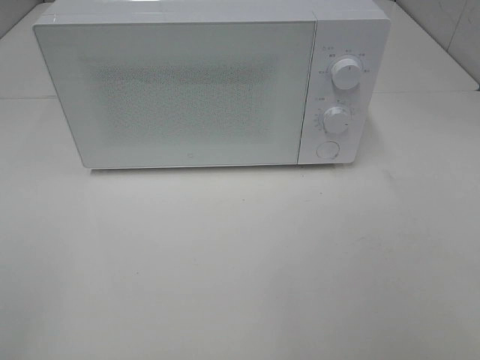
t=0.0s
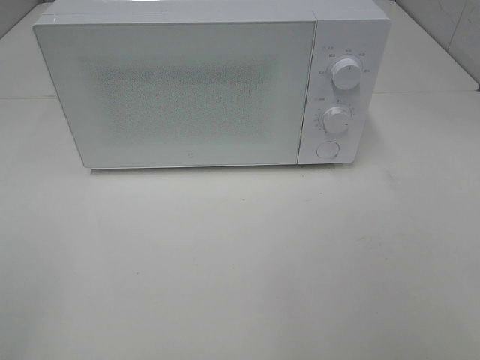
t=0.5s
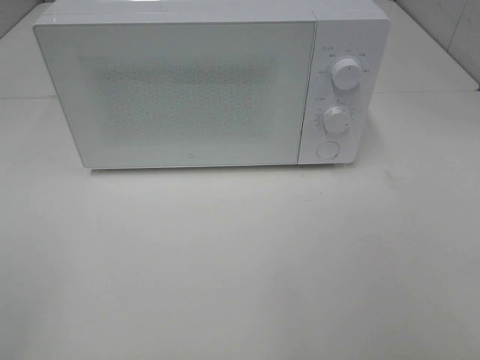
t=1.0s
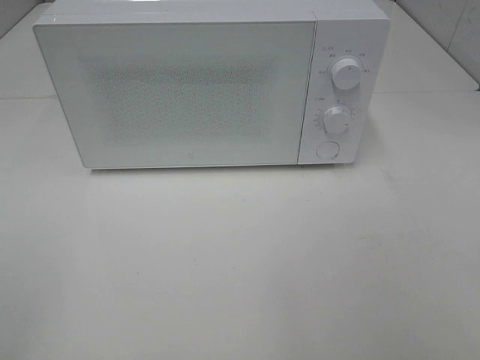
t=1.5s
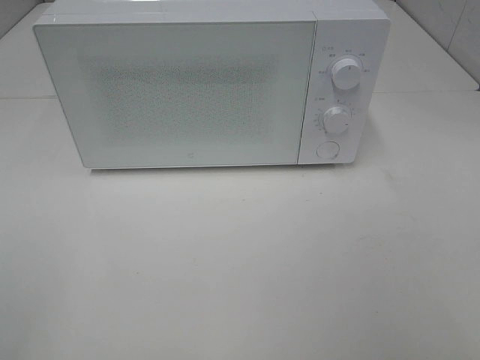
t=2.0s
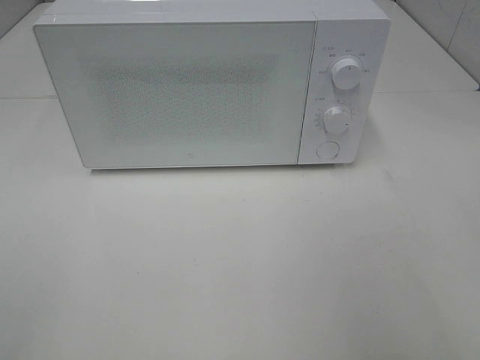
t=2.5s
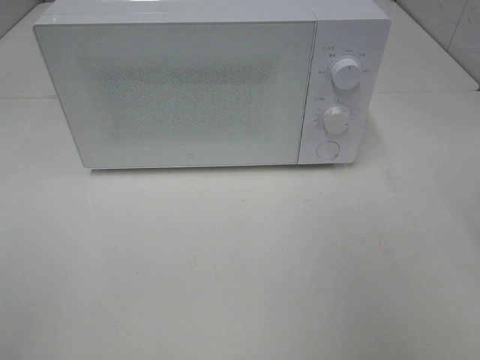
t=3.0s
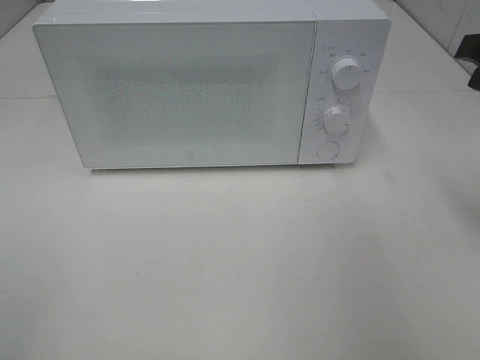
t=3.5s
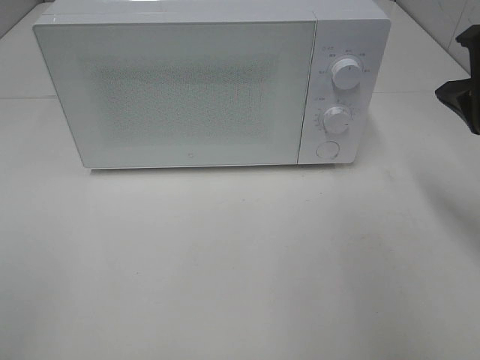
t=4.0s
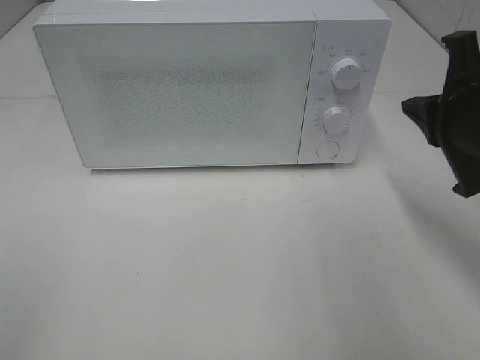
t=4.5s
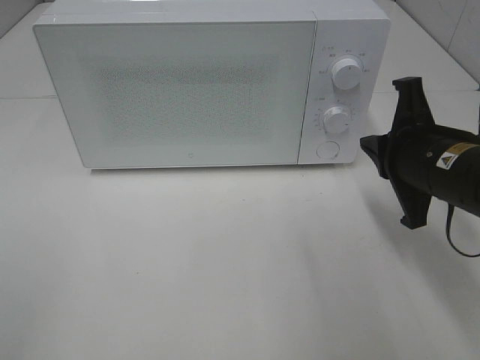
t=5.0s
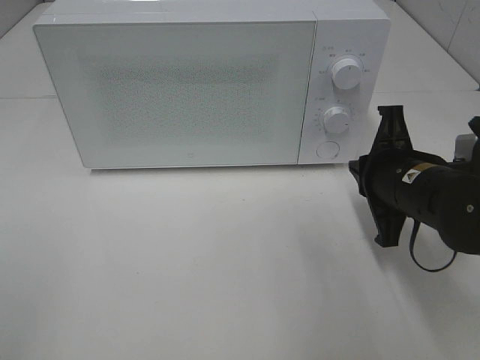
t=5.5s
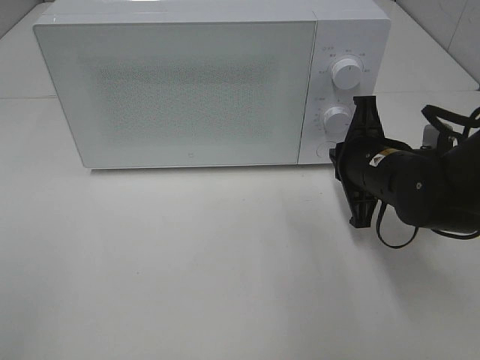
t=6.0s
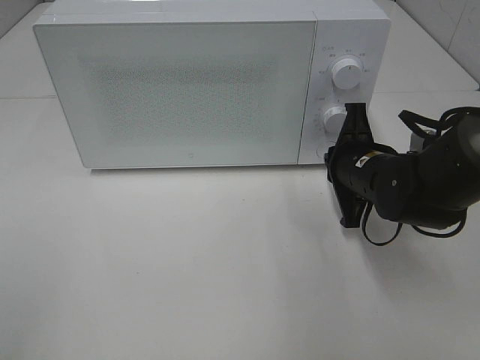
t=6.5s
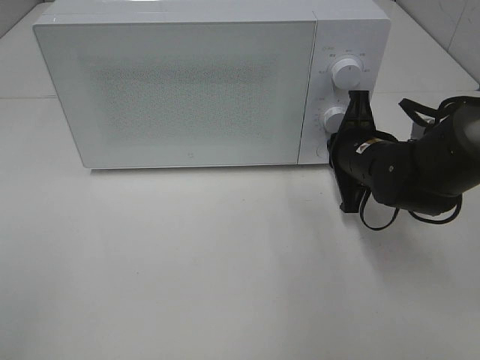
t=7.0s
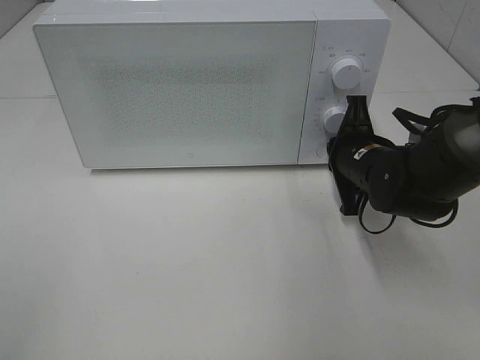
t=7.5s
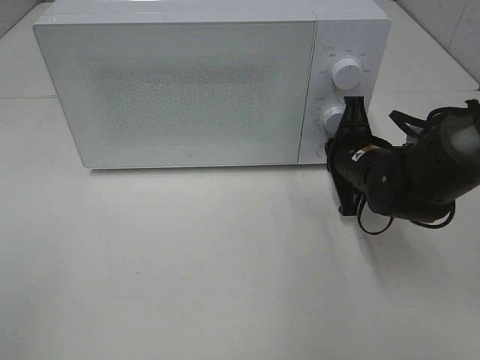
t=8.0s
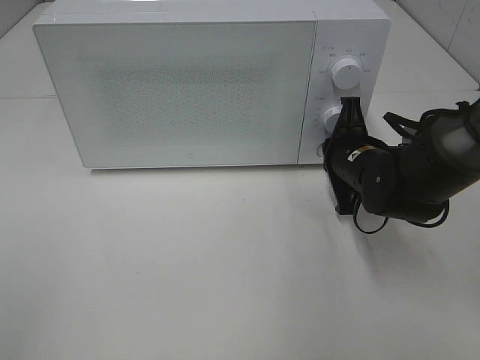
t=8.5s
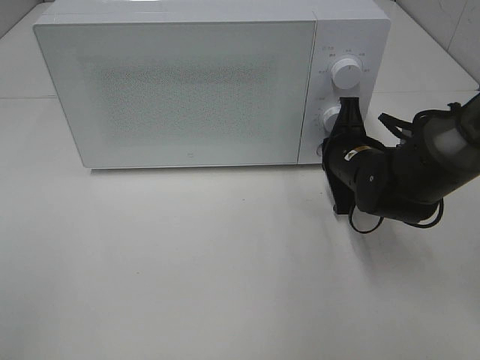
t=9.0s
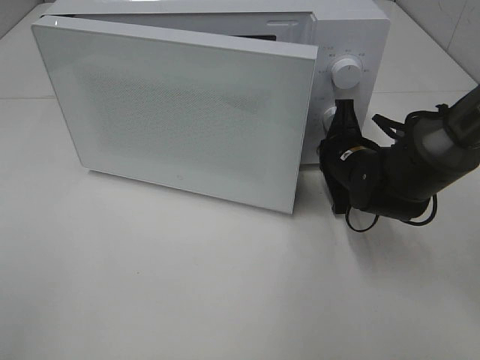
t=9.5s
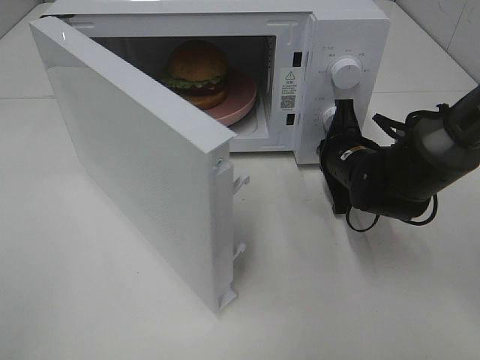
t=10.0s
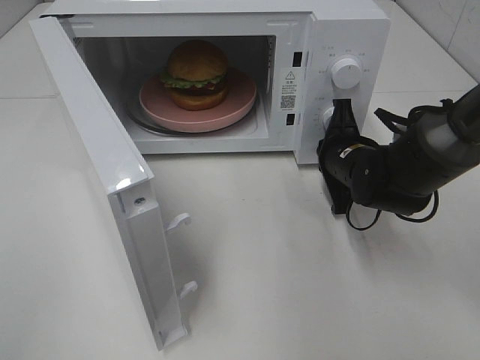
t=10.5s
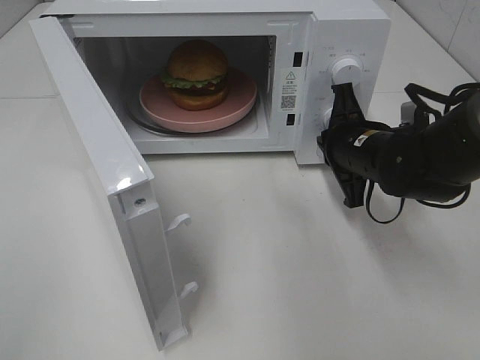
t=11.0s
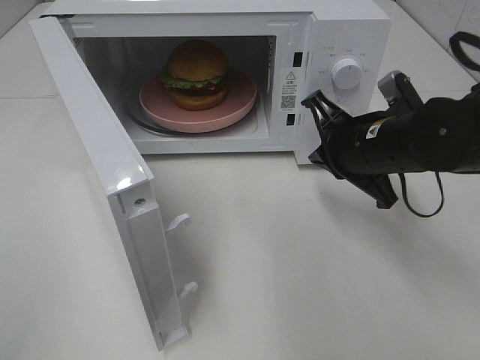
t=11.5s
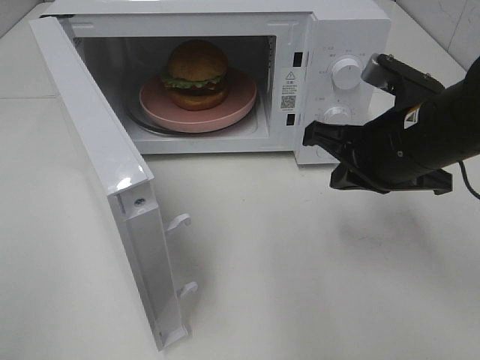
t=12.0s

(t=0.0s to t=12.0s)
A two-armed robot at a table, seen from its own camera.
Task of the whole recording: Heat the burger.
Step, t=0.0s - t=10.5s: Right hand: press the switch.
t=2.0s - t=4.0s: The right gripper shifts about 25 cm forward and downward, and closes up.
t=4.0s - t=6.0s: The right gripper travels downward, to the left and forward by some 15 cm.
t=6.0s - t=8.0s: The grippers stay close to where they were, moving slightly.
t=10.0s - t=12.0s: The right gripper heads upward and backward, covering approximately 15 cm.

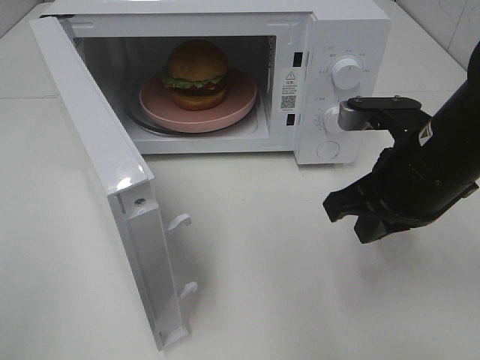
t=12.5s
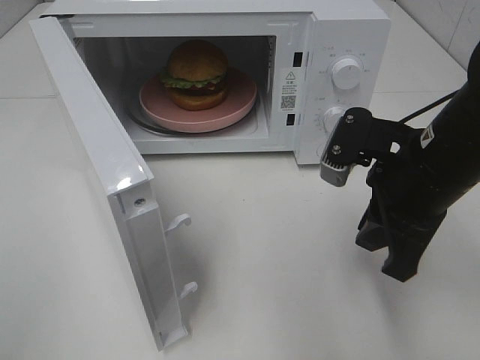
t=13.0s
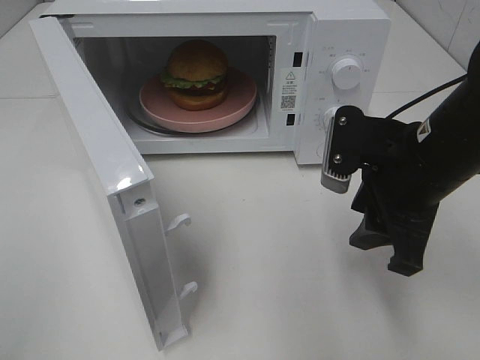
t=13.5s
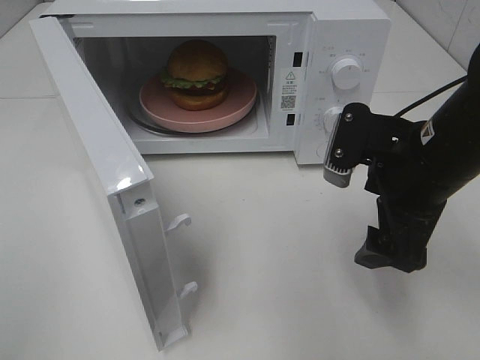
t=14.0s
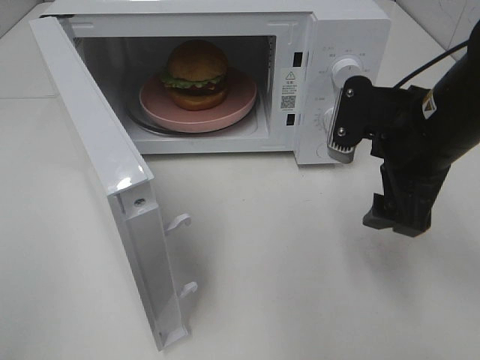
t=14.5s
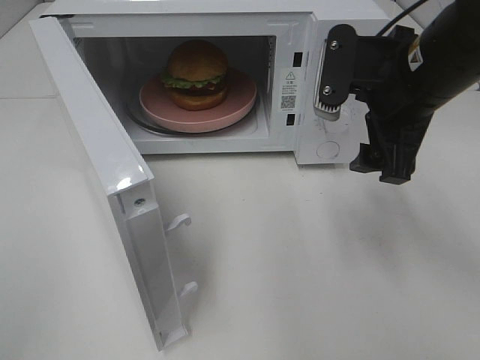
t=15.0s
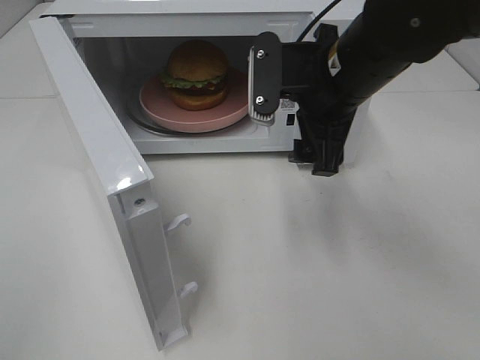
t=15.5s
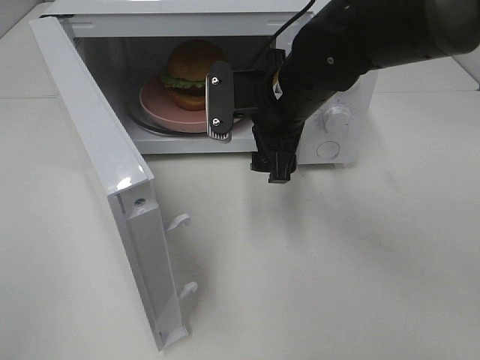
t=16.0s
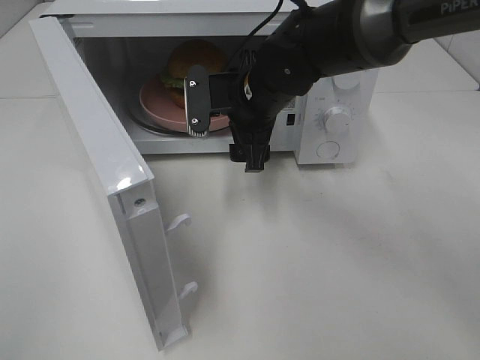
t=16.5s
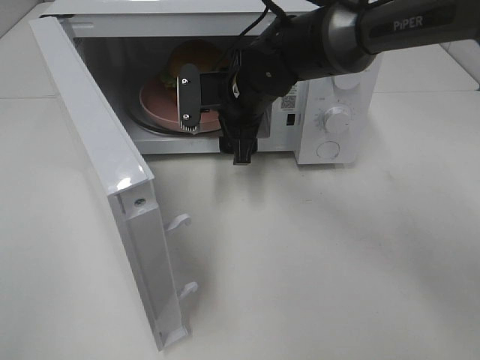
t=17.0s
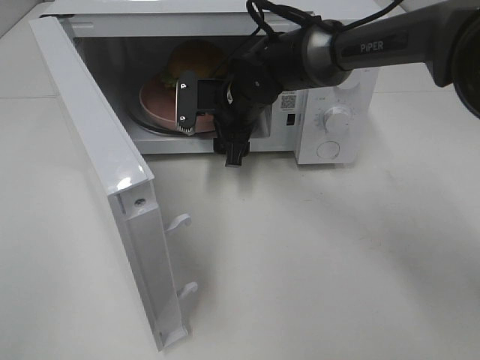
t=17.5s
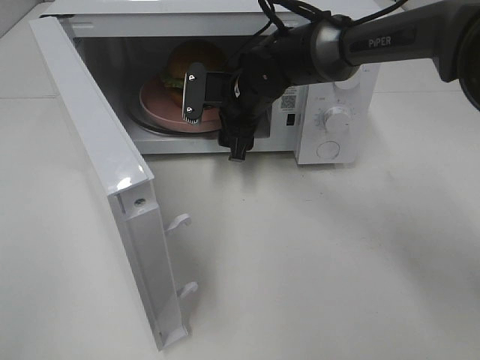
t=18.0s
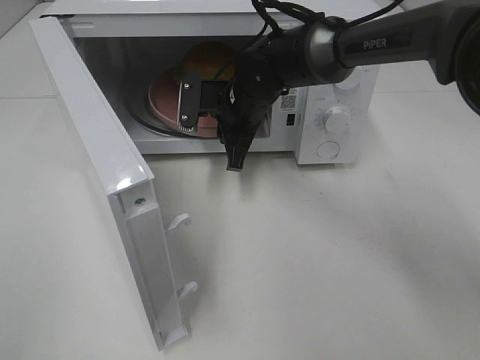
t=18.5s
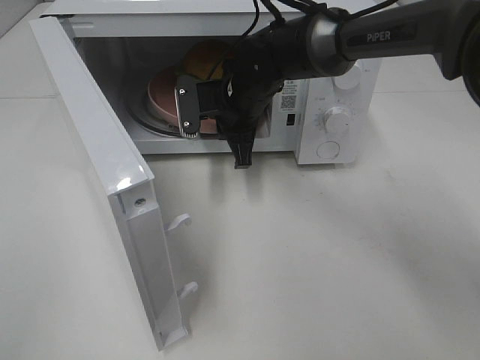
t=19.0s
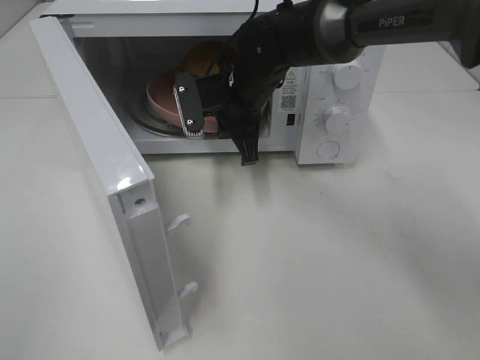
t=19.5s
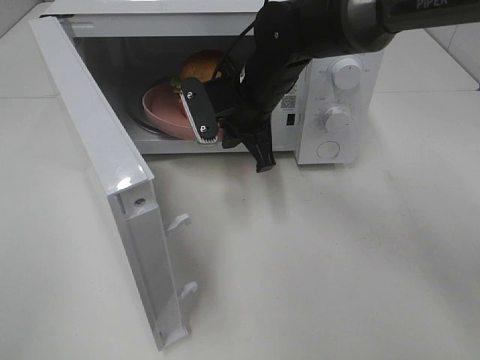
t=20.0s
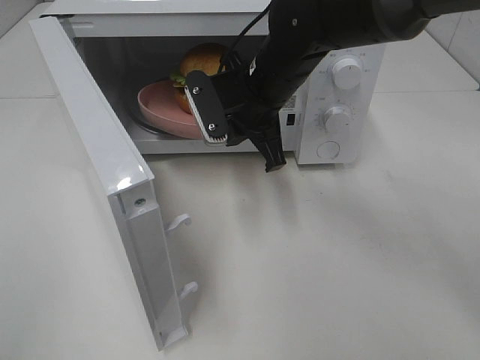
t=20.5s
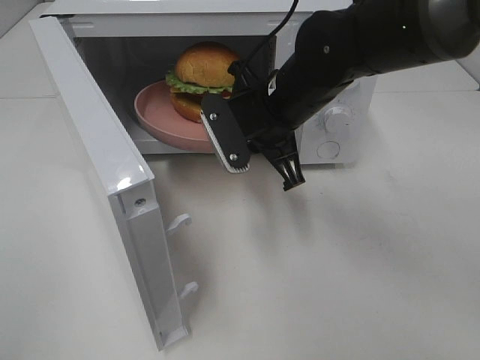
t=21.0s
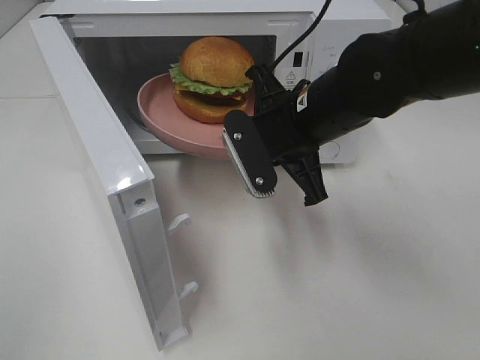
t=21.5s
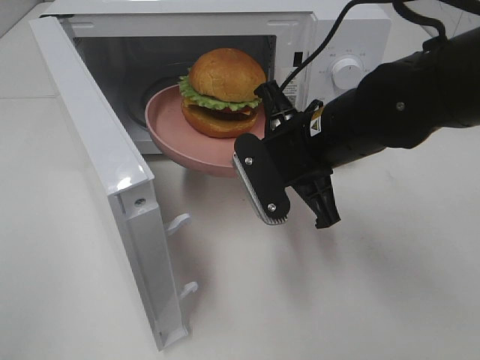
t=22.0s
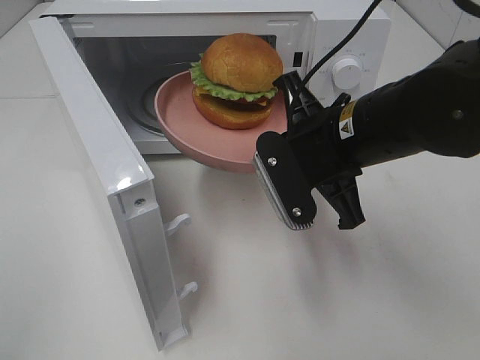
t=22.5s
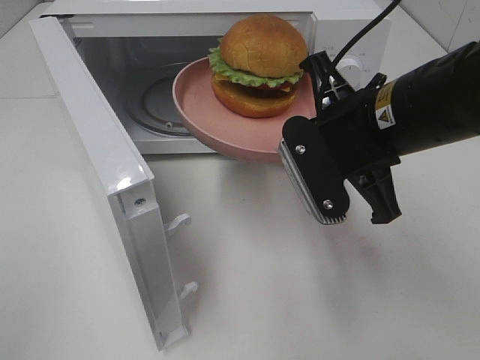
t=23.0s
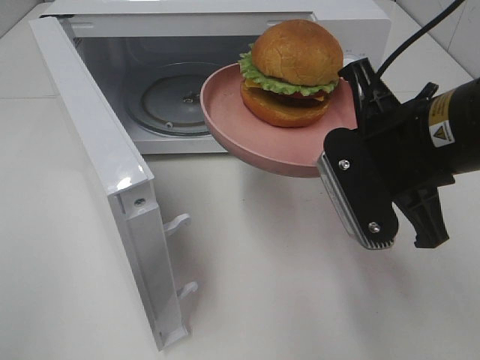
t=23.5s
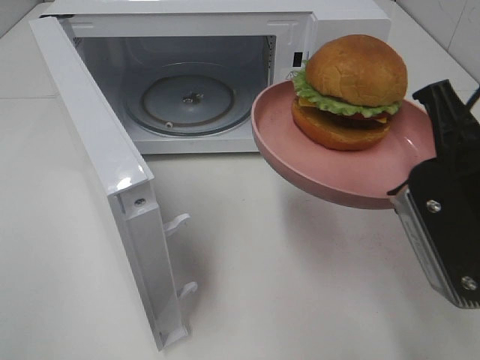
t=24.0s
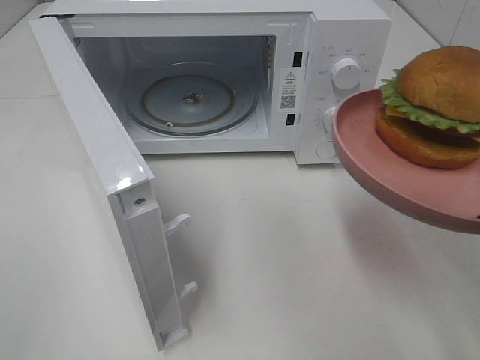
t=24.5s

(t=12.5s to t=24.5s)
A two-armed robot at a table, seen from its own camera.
Task of the whole recording: Heat the burger.
Step, t=12.5s - t=19.0s: Right hand: grab the plate with the hamburger.
t=12.5s - t=14.5s: The right gripper opens up.
t=14.5s - t=16.5s: The right gripper moves to the left and forward, roughly 20 cm.
t=16.5s - t=18.5s: The right gripper travels forward by some 5 cm, and closes its fingers.
t=18.5s - t=20.5s: The right gripper is displaced upward and backward by approximately 10 cm.
t=20.5s - t=22.5s: The right gripper goes roughly 15 cm backward and to the right.
t=22.5s - t=24.5s: The right gripper moves backward and to the right, roughly 20 cm.

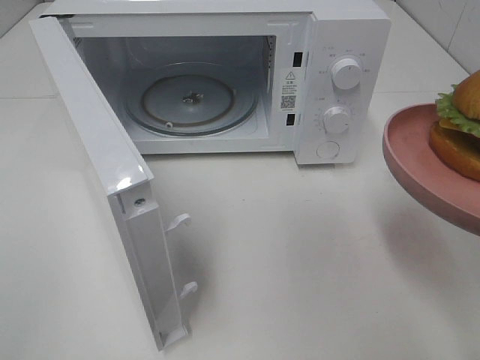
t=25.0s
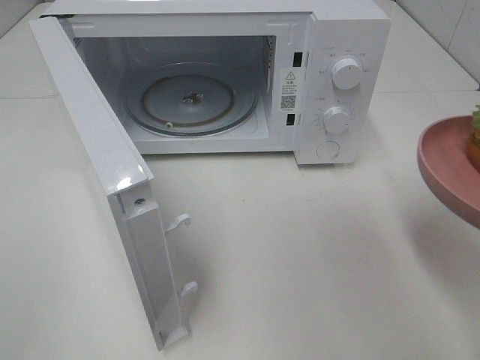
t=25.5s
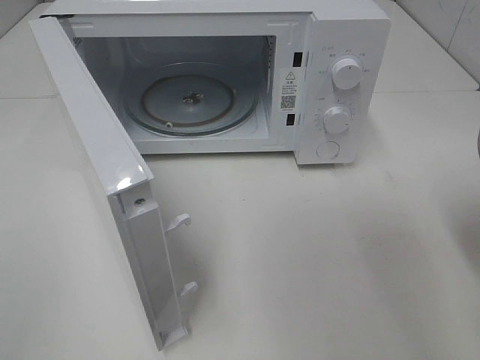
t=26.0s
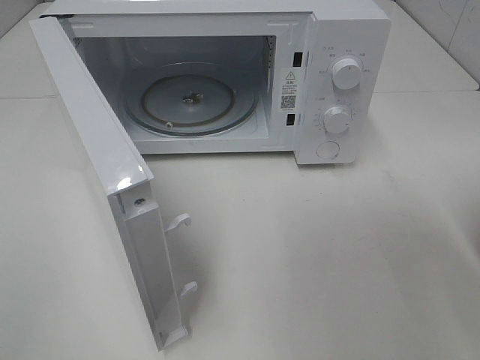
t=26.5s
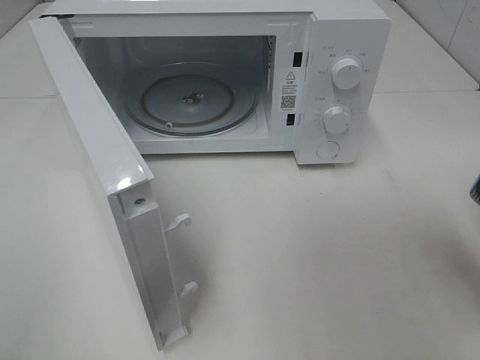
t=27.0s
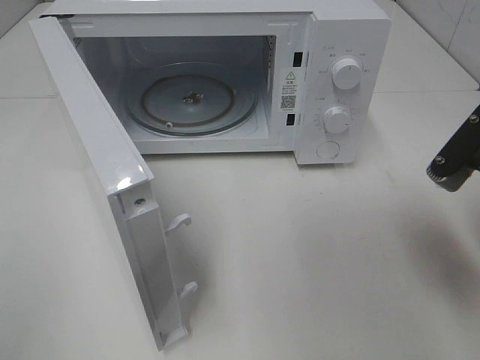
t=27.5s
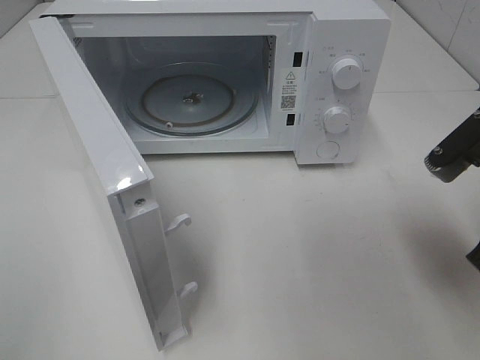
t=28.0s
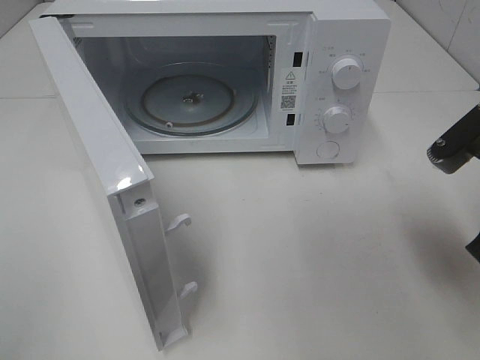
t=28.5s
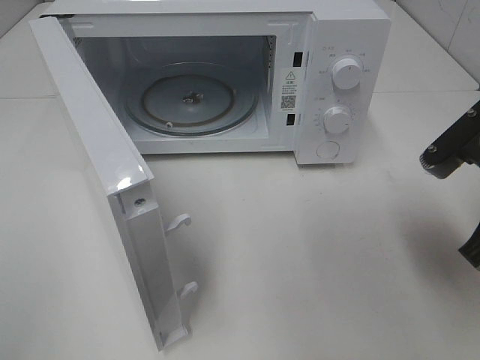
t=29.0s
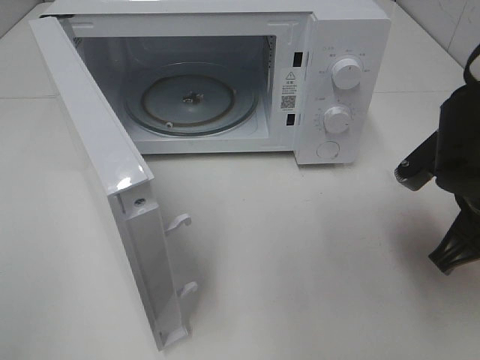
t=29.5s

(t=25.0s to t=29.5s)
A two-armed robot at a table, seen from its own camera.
Task of the whole recording: Heat the burger.
t=27.0s - t=29.5s: The right gripper goes approximately 10 cm downward and forward.
